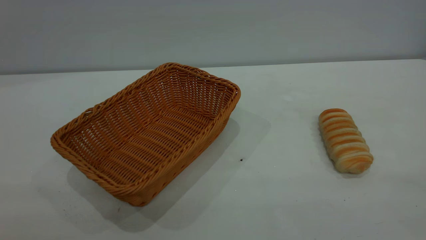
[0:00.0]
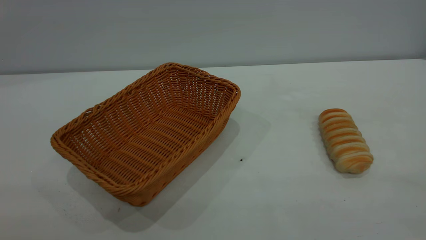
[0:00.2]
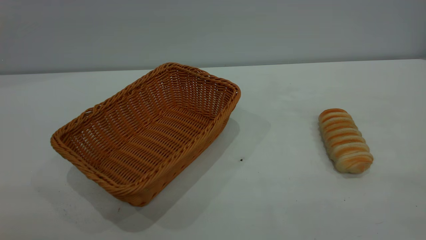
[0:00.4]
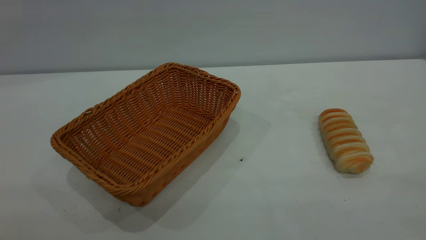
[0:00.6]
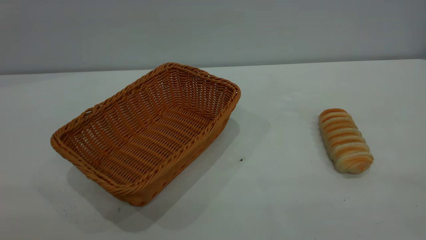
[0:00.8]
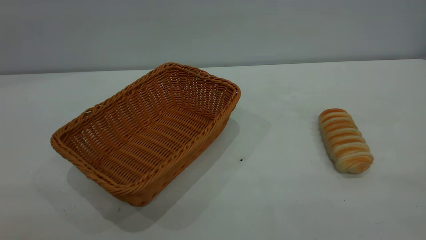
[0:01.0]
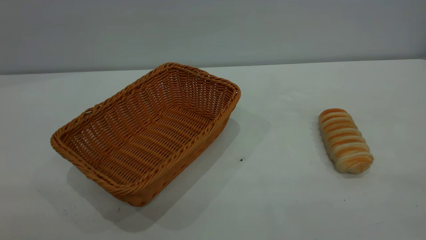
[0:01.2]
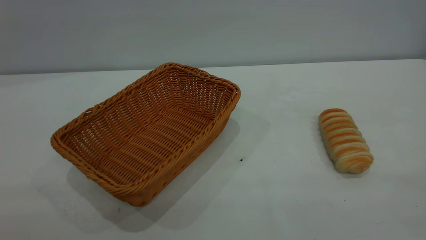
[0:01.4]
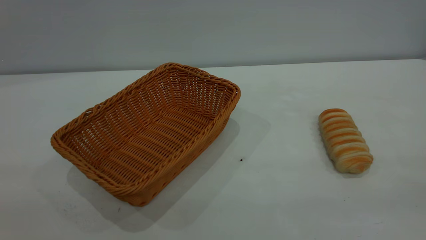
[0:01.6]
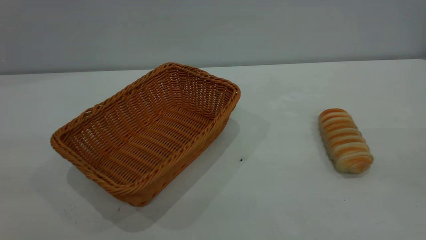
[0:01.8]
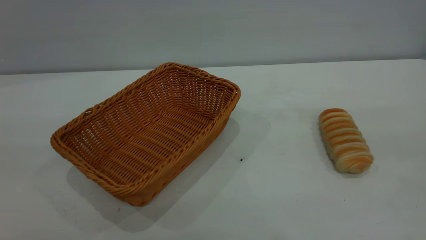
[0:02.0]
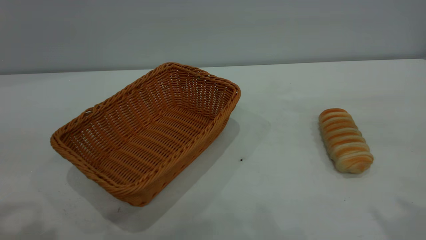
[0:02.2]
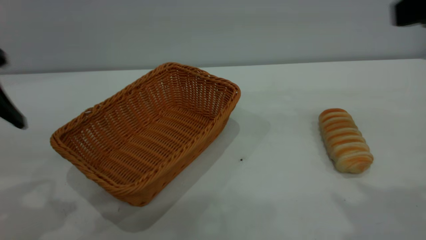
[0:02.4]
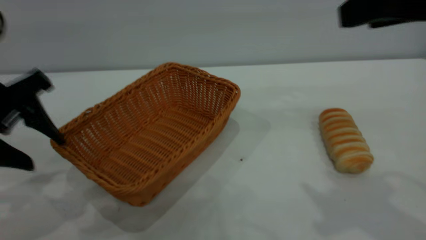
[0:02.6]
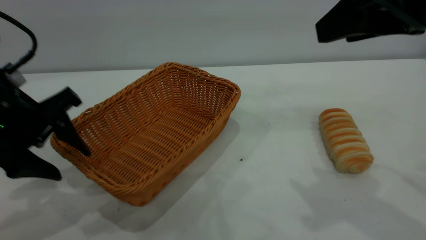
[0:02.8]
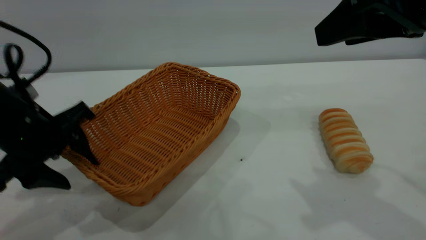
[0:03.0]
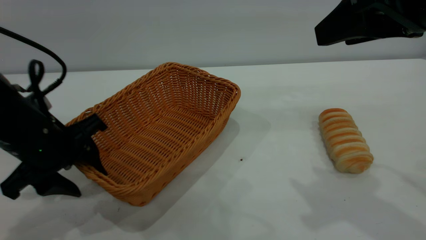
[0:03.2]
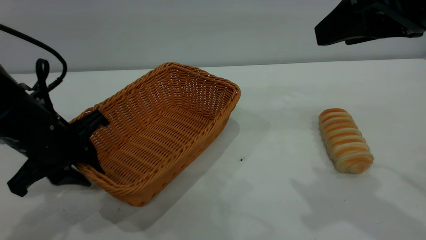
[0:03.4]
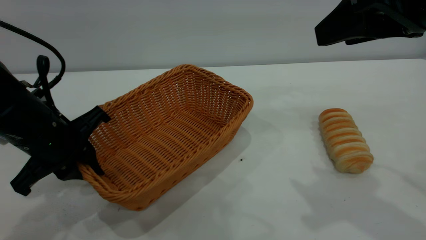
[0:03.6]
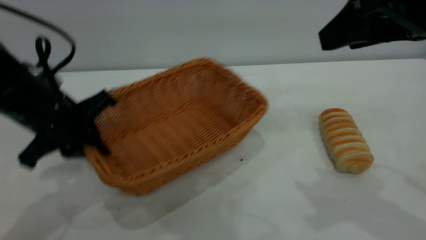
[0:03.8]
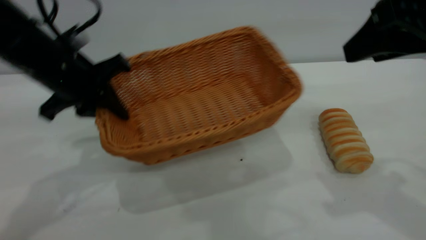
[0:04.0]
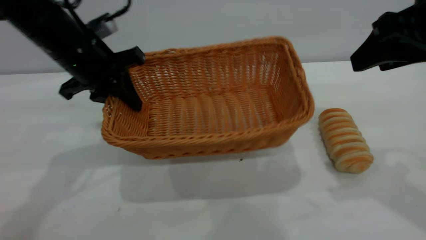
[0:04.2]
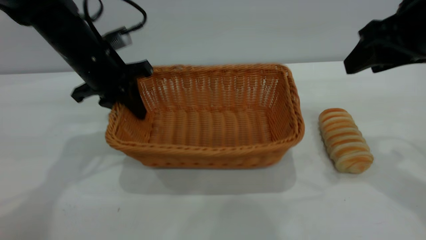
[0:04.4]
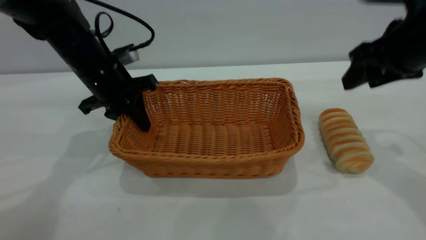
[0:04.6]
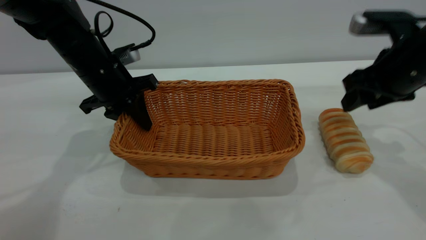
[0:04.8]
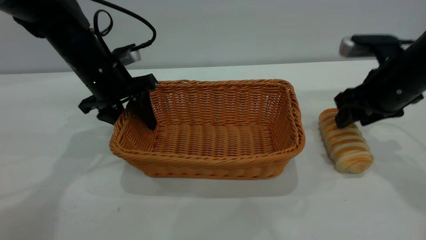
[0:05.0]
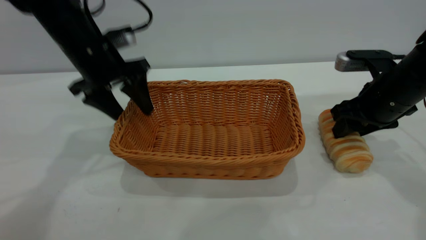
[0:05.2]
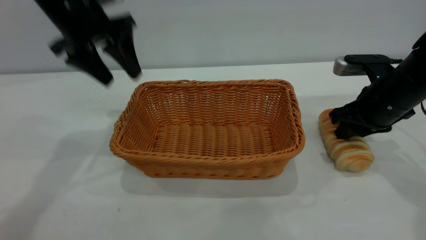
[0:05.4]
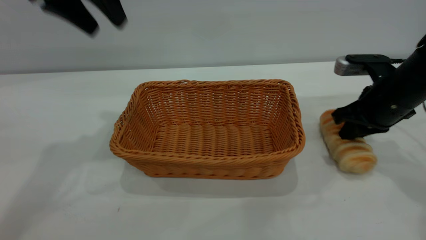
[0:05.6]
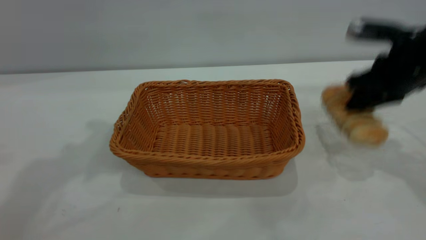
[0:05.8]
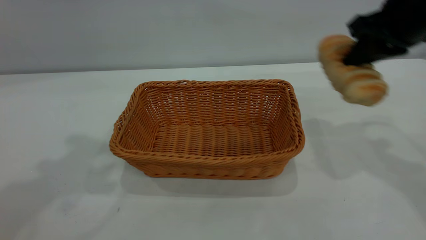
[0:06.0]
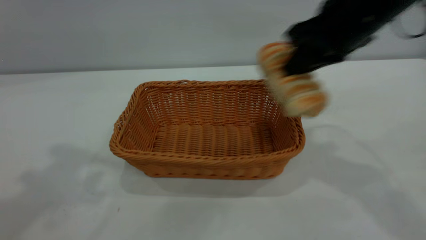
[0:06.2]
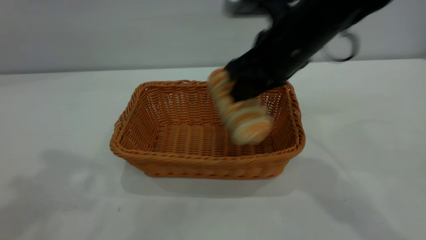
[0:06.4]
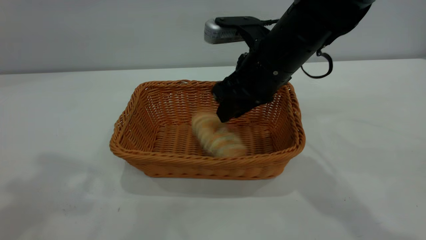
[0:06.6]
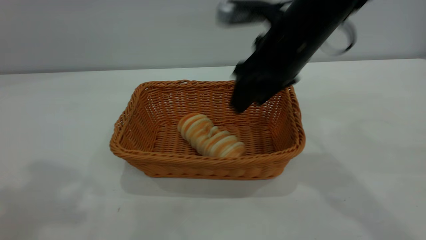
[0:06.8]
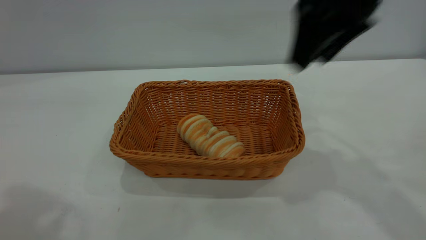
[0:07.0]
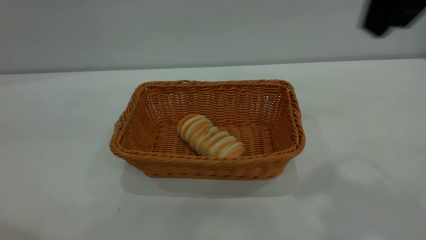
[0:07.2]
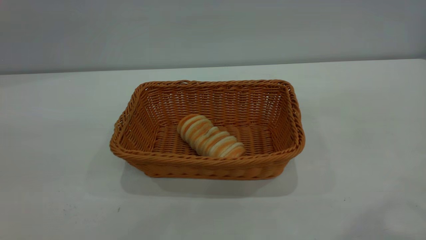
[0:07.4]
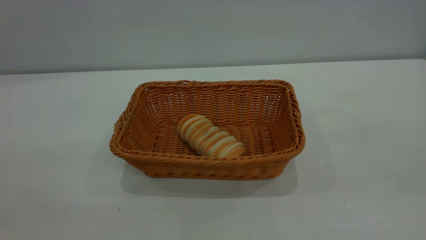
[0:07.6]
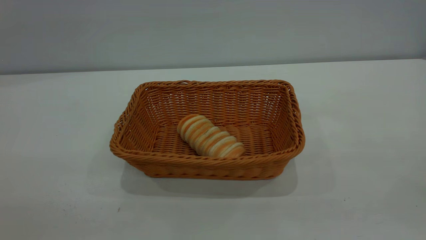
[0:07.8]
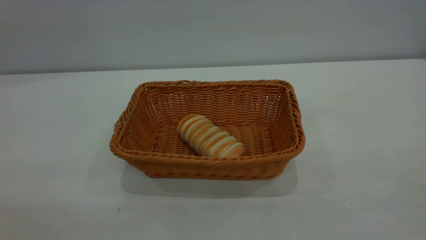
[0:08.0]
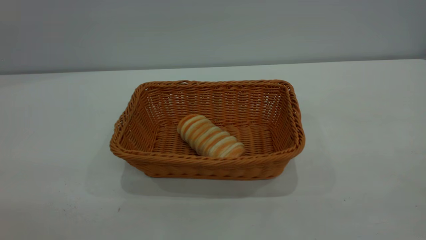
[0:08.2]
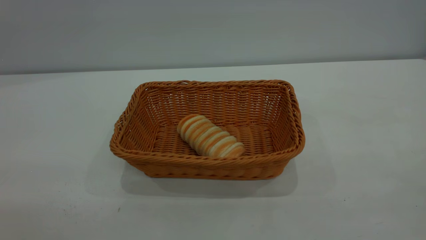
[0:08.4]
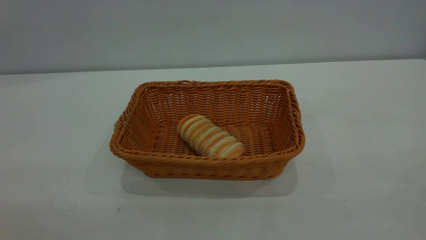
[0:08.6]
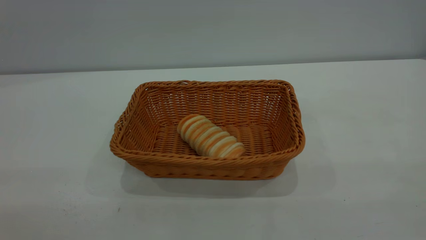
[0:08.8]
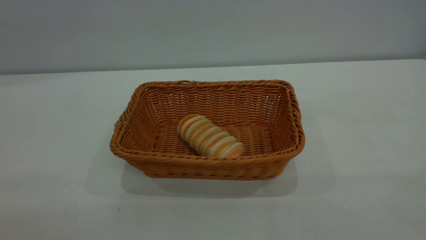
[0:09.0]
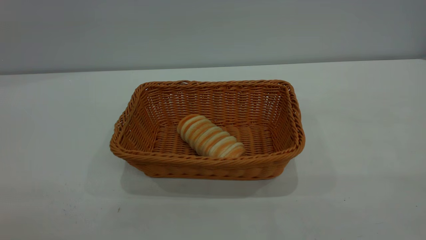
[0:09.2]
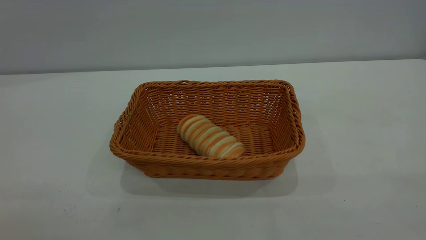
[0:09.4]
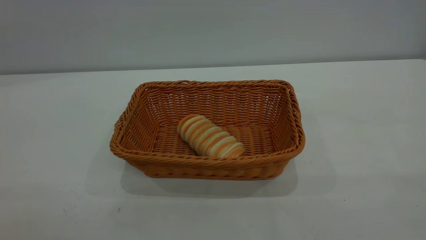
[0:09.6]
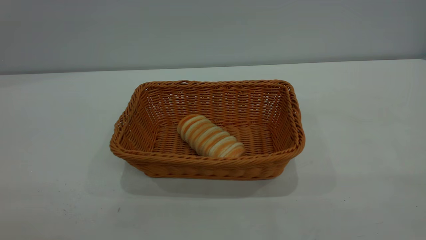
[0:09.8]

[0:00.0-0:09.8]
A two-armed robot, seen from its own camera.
Task of the whole recording: One hand grasps the yellow basket and places it in the middle of the table, while the other hand picks up the long bread and puts it into the yellow basket.
Step, 0:00.0 to 0:05.2: Move the basket to the center of view.
Step, 0:06.0 to 0:06.8: place the bread into the basket.
0:00.0 to 0:01.4: The two grippers keep their place.
0:01.4 to 0:02.8: The left gripper travels forward and downward by approximately 35 cm; the right gripper goes approximately 25 cm forward.
0:02.8 to 0:04.2: The left gripper goes approximately 15 cm forward, and closes up; the right gripper shifts by approximately 5 cm.
0:04.2 to 0:05.6: The right gripper moves downward and forward, roughly 15 cm, and closes. The left gripper goes about 15 cm upward, and opens.
0:05.6 to 0:07.0: The left gripper goes roughly 25 cm backward and upward, while the right gripper swings up and down, approximately 20 cm each way, with 2 reversals, and opens its fingers.
0:07.0 to 0:08.4: The right gripper travels backward by approximately 30 cm.
